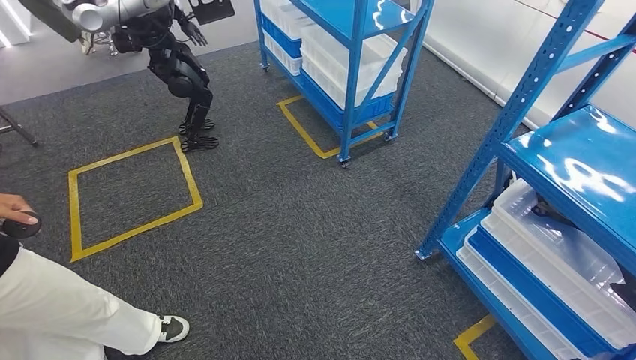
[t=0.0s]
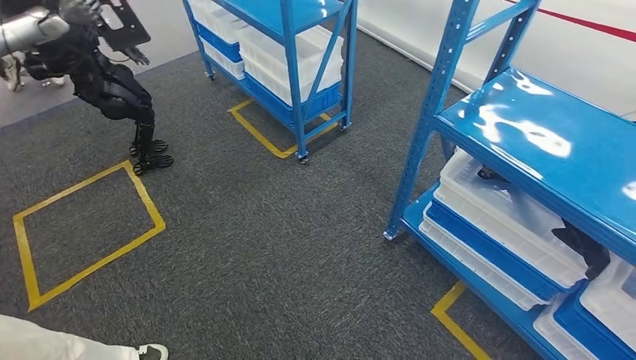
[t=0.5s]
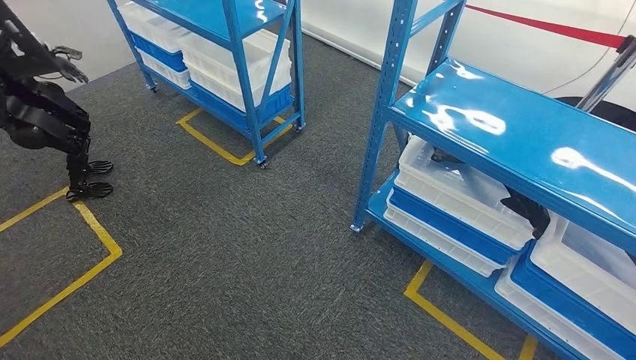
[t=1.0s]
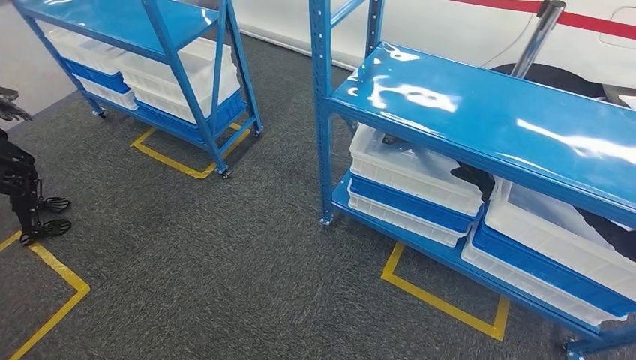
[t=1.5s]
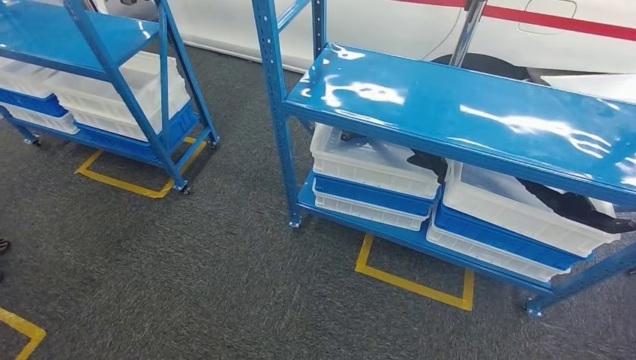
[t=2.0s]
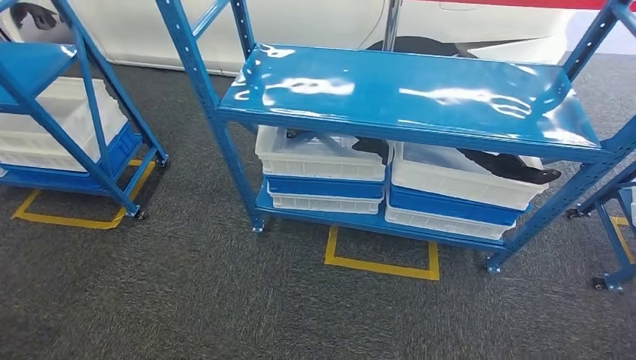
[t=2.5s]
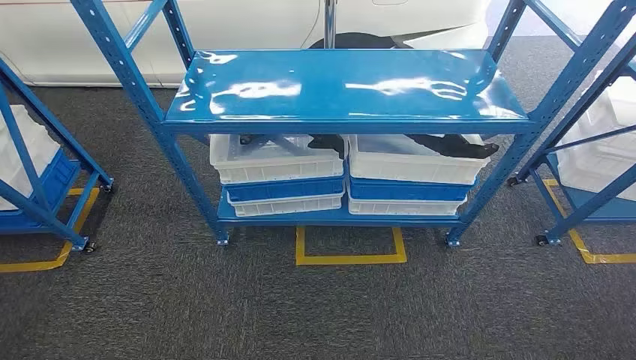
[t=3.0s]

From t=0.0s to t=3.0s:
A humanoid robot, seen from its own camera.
Step, from t=0.0s to t=2.5s: Move to the initial position of the shelf.
